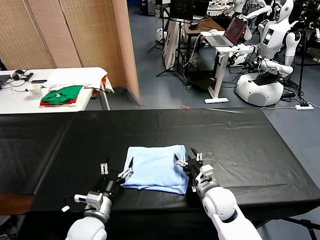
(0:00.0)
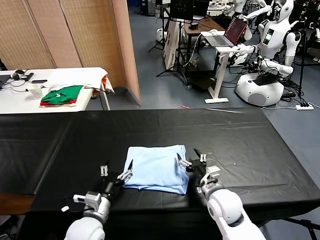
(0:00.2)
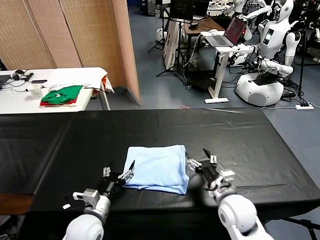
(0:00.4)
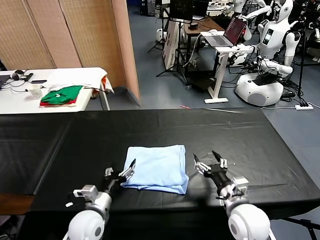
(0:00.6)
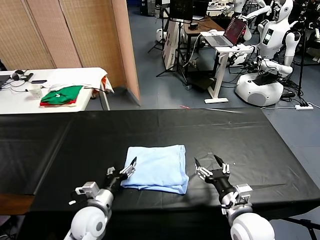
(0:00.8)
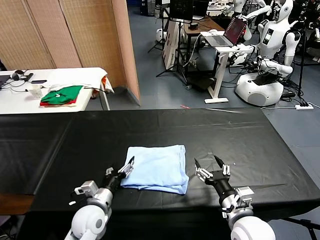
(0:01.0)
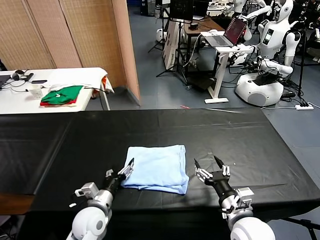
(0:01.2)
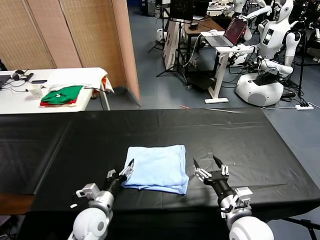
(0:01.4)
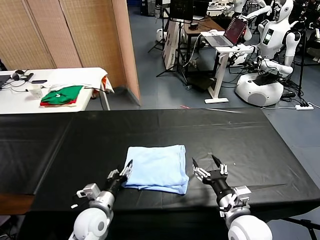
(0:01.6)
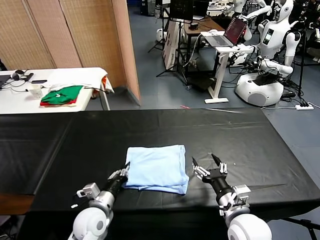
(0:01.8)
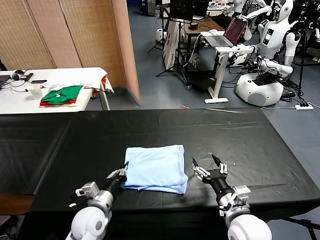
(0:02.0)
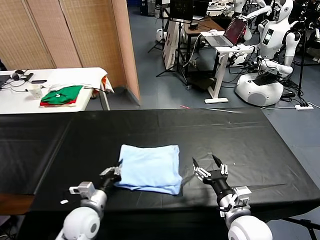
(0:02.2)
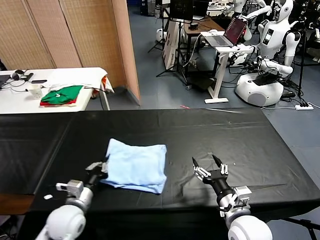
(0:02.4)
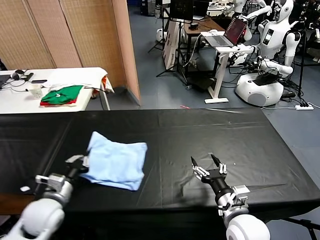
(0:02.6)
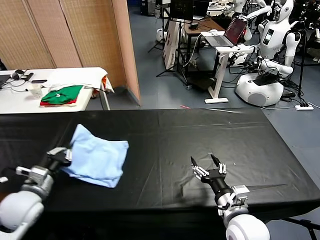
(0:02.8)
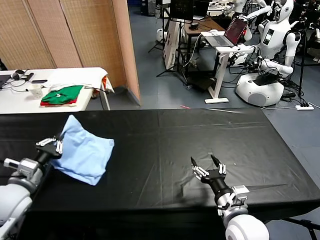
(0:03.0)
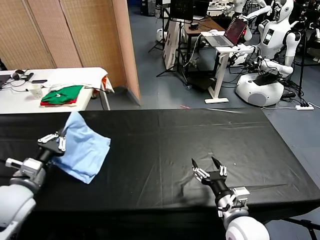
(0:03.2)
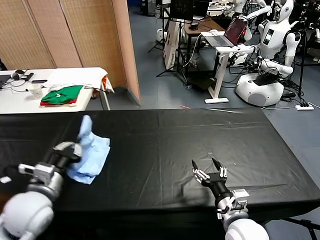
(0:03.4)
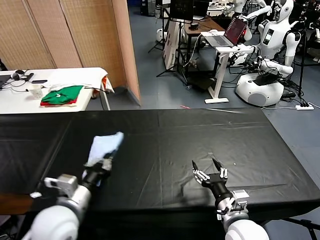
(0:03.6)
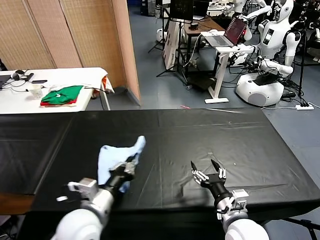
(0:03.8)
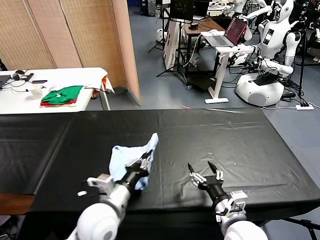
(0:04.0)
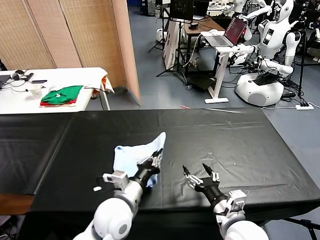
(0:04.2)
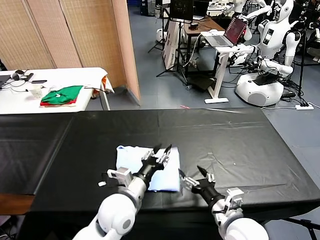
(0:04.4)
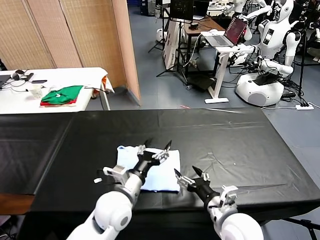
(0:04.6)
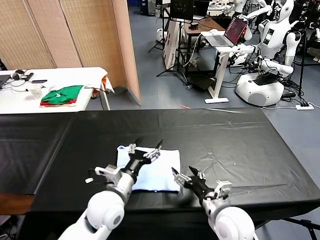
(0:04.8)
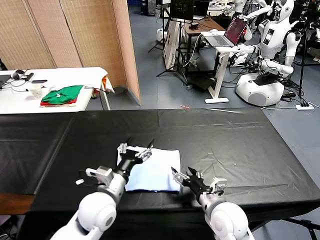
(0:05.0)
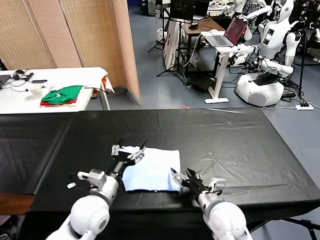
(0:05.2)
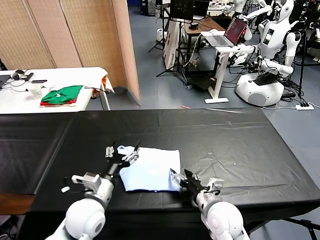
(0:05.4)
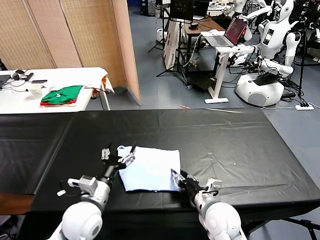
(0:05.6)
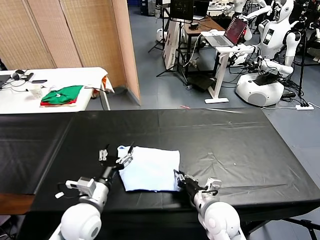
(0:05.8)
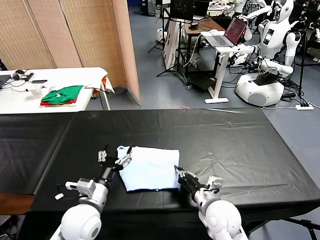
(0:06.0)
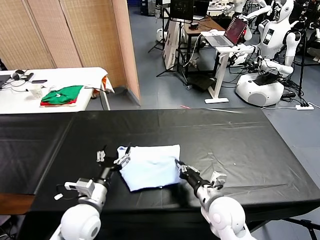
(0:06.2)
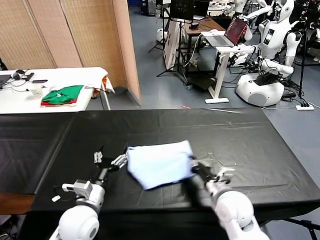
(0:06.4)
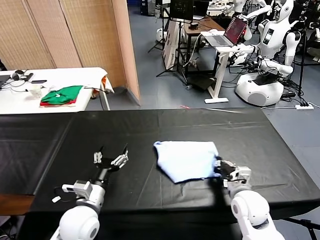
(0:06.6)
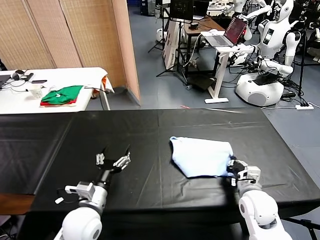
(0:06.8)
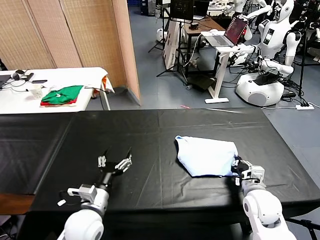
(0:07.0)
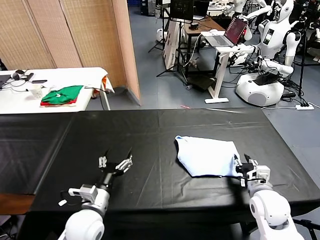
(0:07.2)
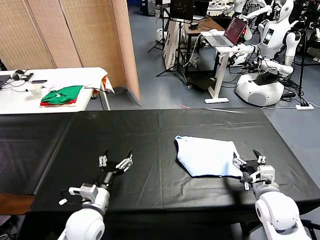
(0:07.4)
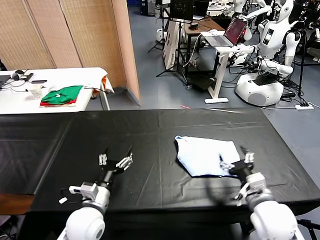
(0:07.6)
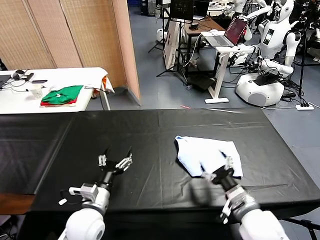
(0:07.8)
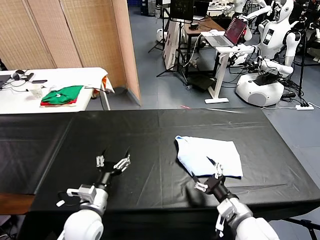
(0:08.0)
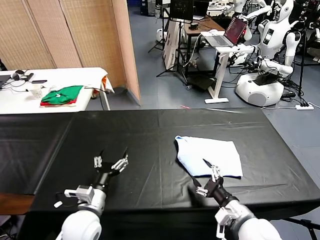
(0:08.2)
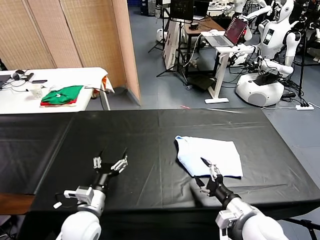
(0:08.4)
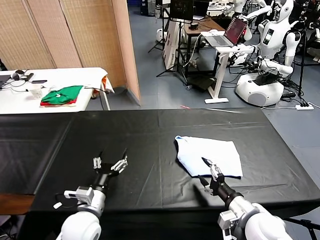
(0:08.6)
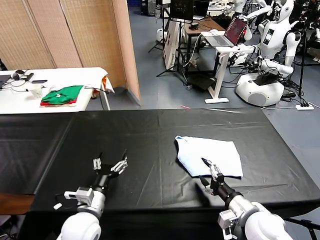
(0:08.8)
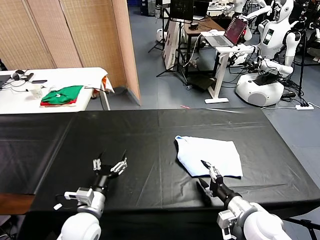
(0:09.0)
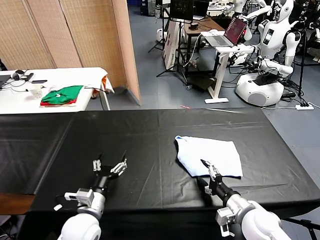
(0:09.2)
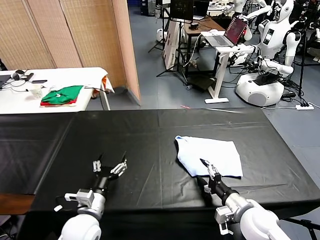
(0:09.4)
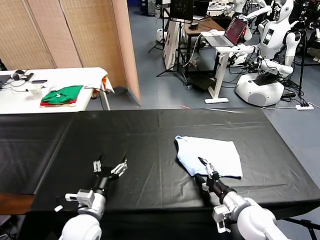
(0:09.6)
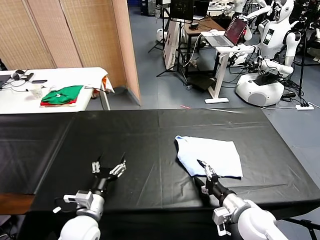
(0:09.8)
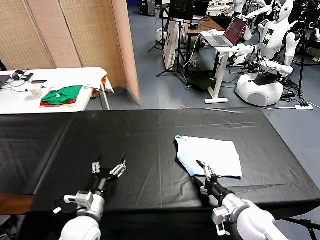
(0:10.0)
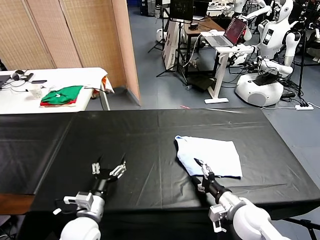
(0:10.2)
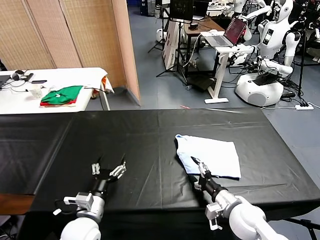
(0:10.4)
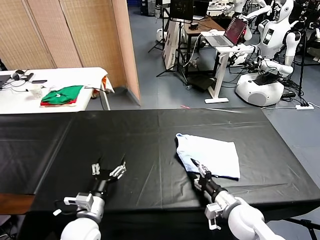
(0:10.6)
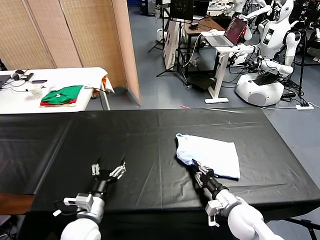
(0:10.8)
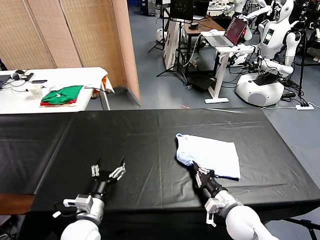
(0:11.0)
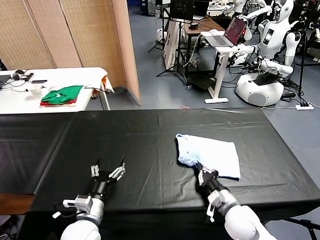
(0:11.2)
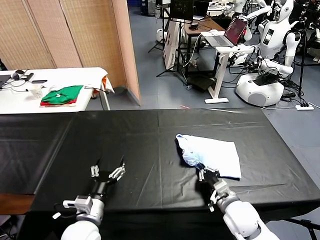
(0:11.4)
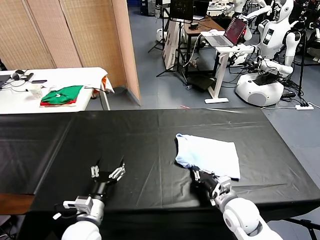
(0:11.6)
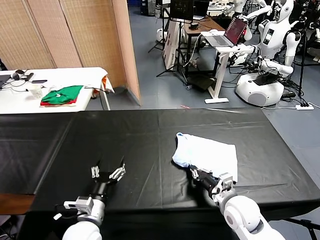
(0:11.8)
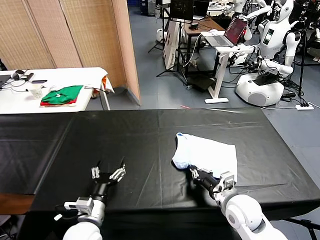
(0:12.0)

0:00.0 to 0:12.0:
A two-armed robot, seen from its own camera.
Task of the whole recording: fold and organize the clothes.
Step, 0:00.0 to 0:04.4: Flip the folded clothes over with left gripper.
Step, 0:04.6 to 0:07.2: Drag the clothes to the center of the table.
0:00.0 to 0:01.6: The left gripper ends up some 5 cm from where it was, and closes its fingers. Meanwhile the right gripper travels backward and upward by about 10 cm.
0:01.6 to 0:03.0: The left gripper goes approximately 25 cm to the left and upward, and closes its fingers.
0:03.0 to 0:04.4: The left gripper goes some 30 cm to the right, and opens.
0:04.4 to 0:06.0: The left gripper is displaced to the left by some 10 cm, and opens its fingers; the right gripper heads forward, covering roughly 5 cm, and closes its fingers.
0:06.0 to 0:07.6: The right gripper heads to the right and upward, covering some 10 cm, and opens its fingers.
0:07.6 to 0:09.0: The right gripper changes place by some 5 cm.
0:09.0 to 0:10.4: The right gripper changes place by some 5 cm.
0:10.4 to 0:12.0: The right gripper closes up.

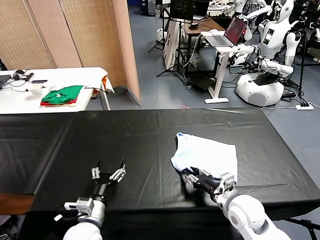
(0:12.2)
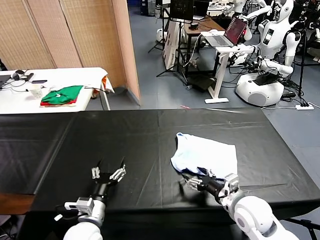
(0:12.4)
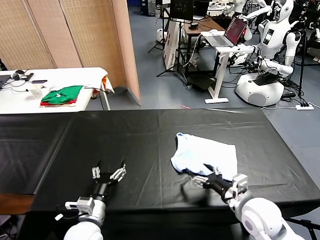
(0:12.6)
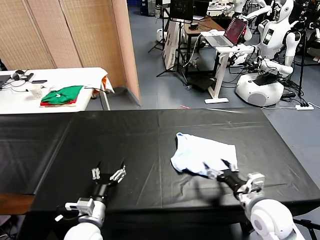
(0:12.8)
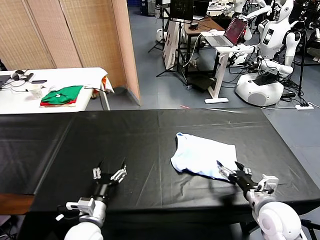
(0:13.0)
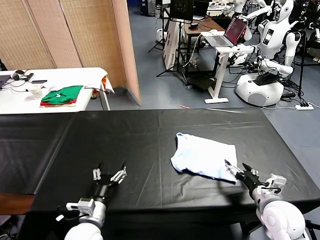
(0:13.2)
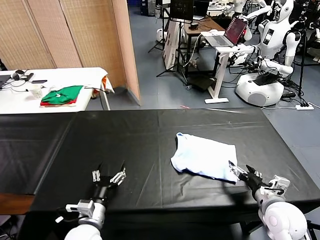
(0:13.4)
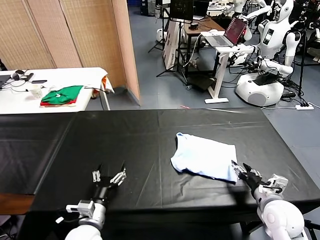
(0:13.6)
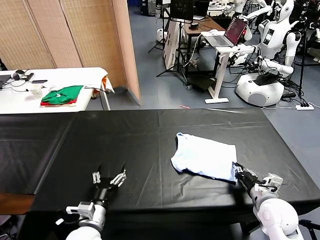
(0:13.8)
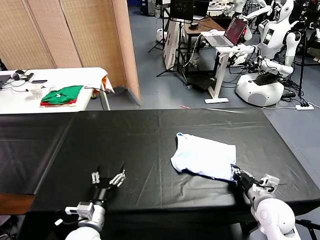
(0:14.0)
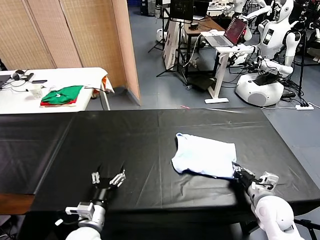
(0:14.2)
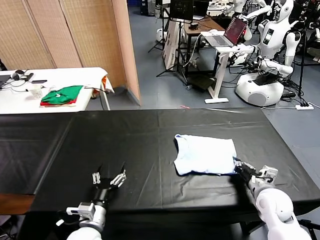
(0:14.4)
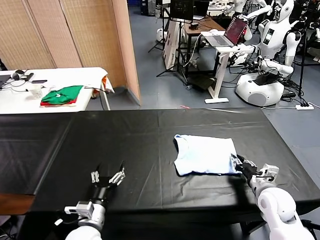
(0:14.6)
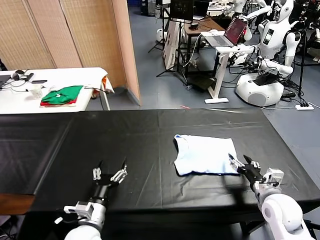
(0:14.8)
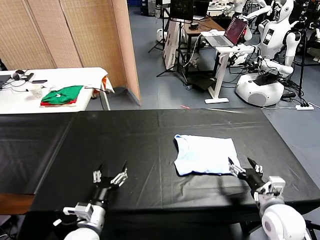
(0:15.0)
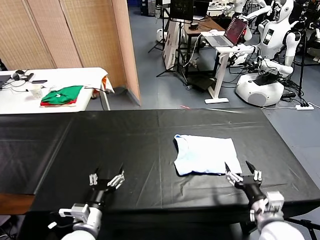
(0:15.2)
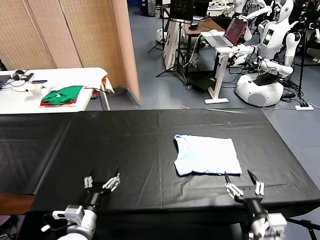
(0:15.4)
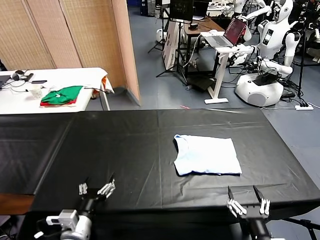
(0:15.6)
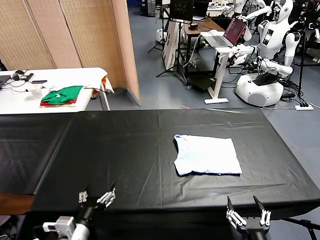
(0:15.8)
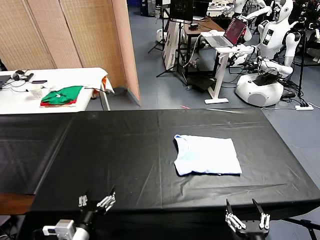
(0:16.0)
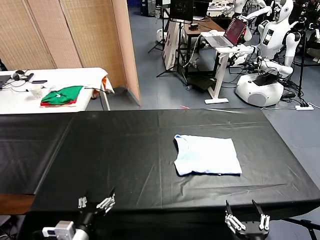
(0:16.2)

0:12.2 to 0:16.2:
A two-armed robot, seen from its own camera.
Task of the whole recording: fold and organize the clothes.
0:12.2 to 0:13.6: The right gripper heads to the right, covering approximately 10 cm, and opens.
0:13.6 to 0:14.8: The right gripper closes, then reopens.
0:14.8 to 0:16.2: The right gripper is displaced backward and to the left by about 25 cm, and opens its fingers. Meanwhile the left gripper is displaced backward by approximately 5 cm.
